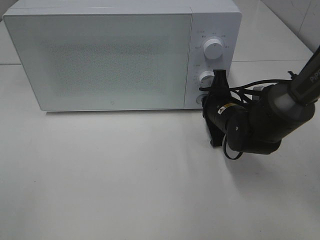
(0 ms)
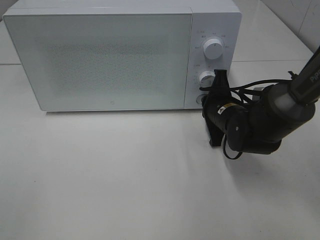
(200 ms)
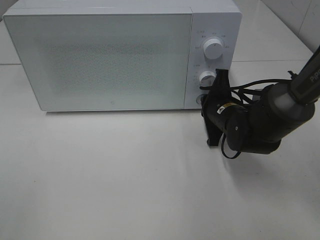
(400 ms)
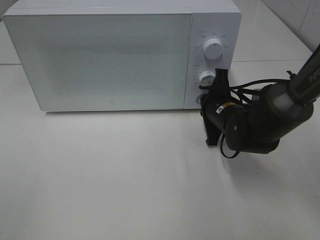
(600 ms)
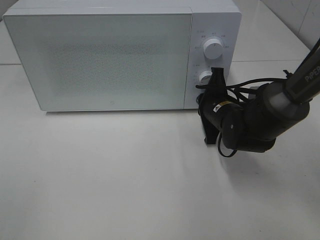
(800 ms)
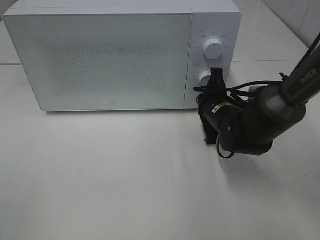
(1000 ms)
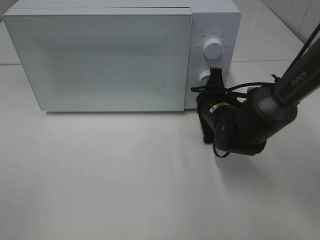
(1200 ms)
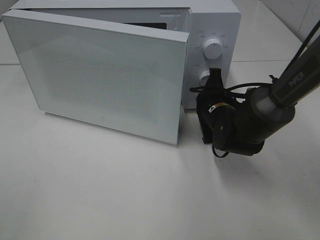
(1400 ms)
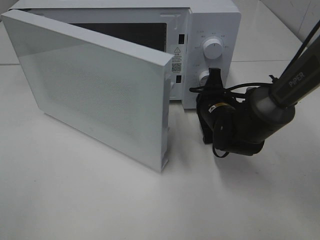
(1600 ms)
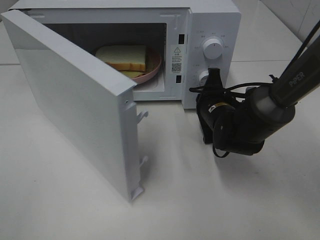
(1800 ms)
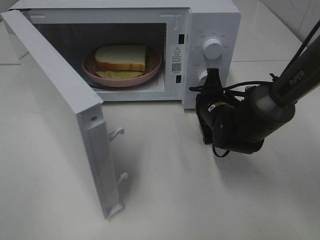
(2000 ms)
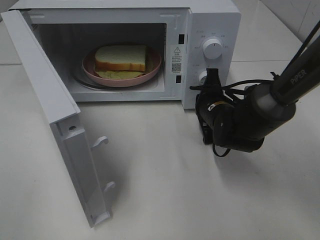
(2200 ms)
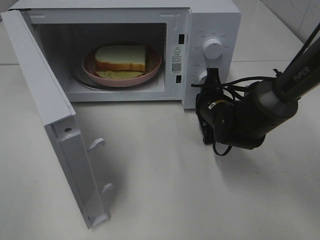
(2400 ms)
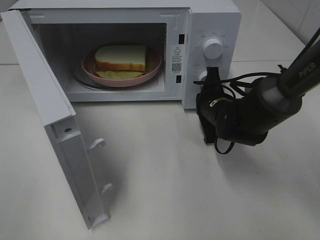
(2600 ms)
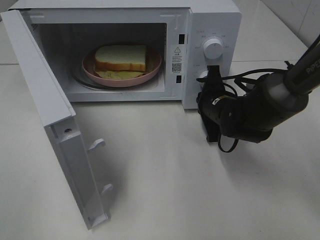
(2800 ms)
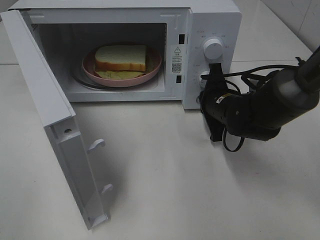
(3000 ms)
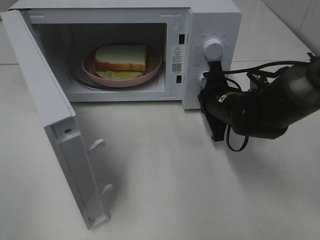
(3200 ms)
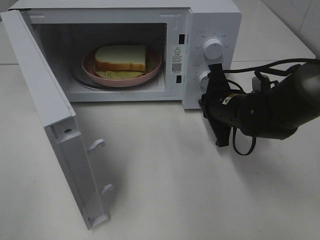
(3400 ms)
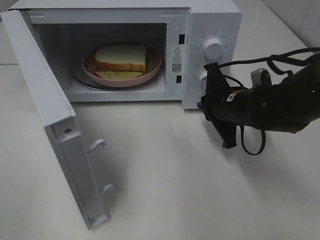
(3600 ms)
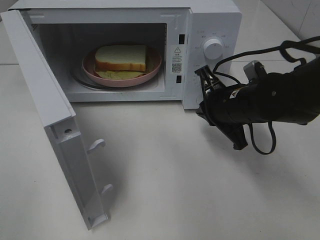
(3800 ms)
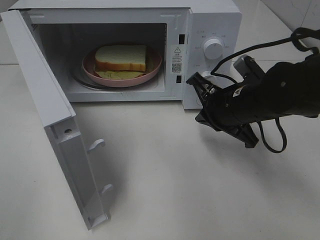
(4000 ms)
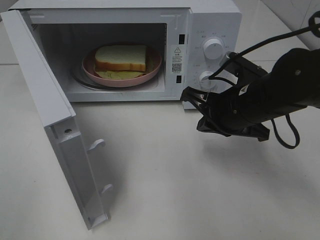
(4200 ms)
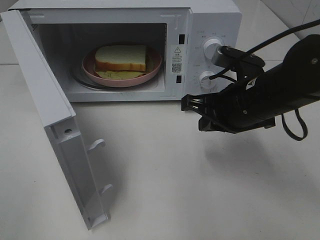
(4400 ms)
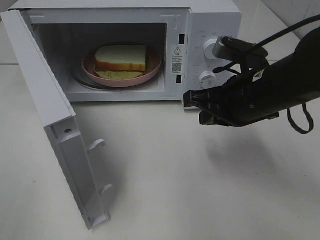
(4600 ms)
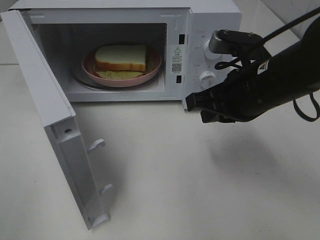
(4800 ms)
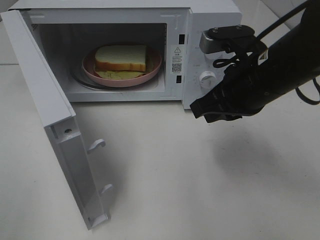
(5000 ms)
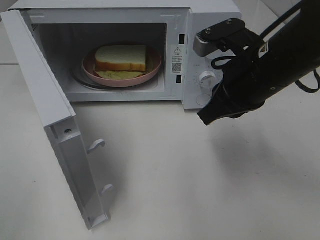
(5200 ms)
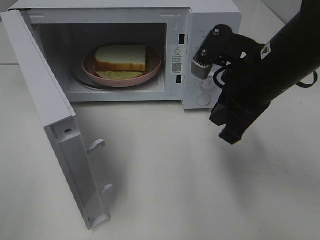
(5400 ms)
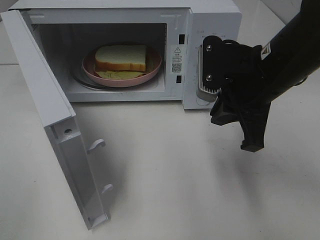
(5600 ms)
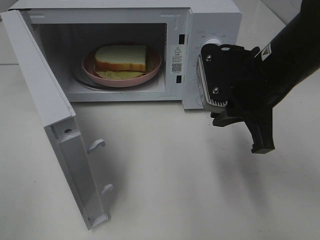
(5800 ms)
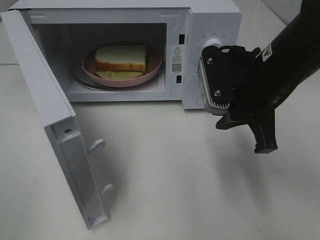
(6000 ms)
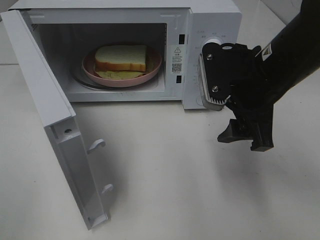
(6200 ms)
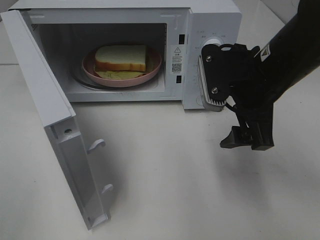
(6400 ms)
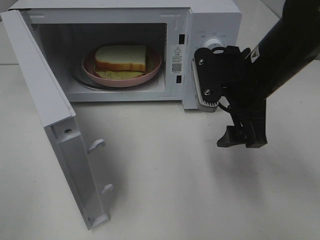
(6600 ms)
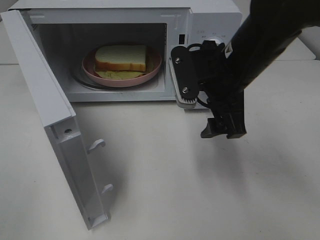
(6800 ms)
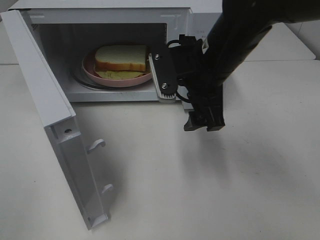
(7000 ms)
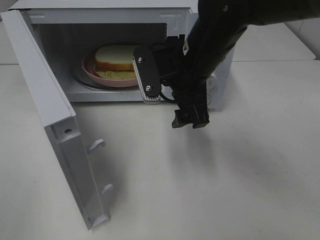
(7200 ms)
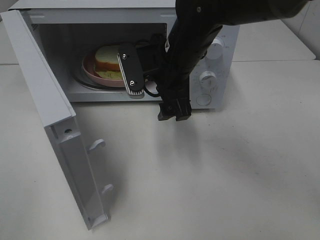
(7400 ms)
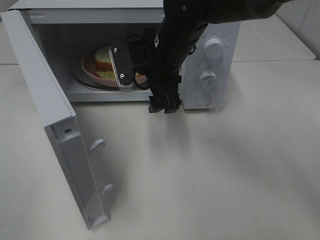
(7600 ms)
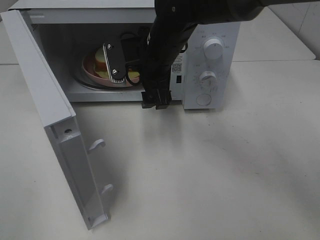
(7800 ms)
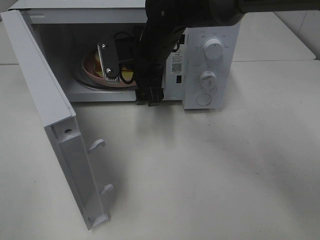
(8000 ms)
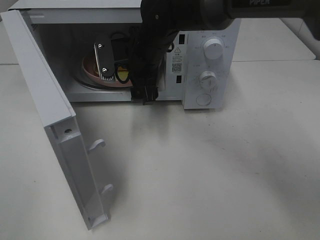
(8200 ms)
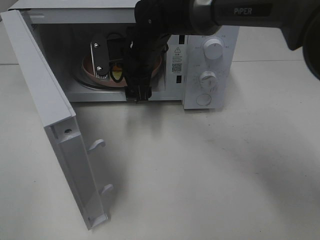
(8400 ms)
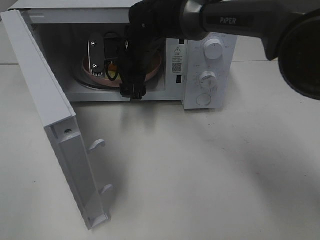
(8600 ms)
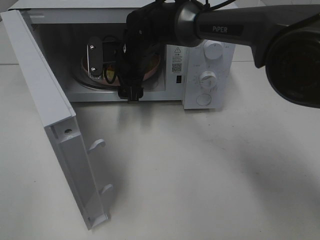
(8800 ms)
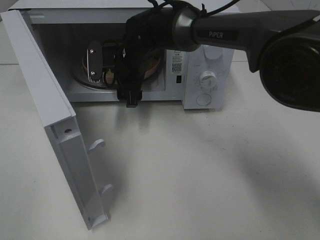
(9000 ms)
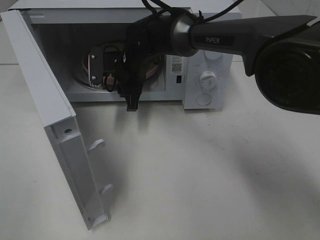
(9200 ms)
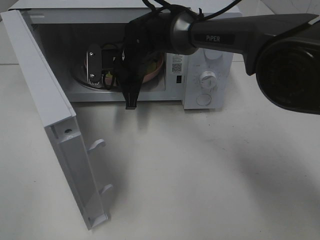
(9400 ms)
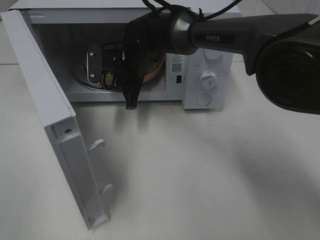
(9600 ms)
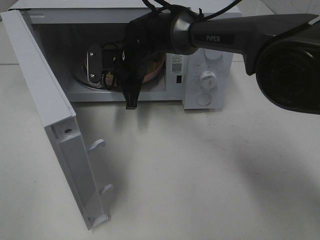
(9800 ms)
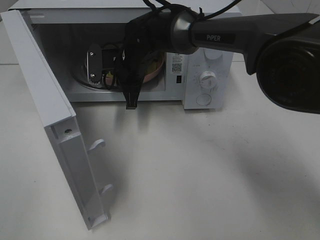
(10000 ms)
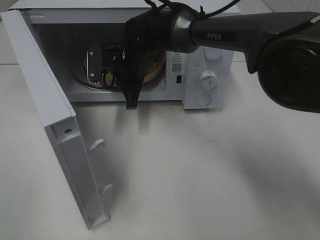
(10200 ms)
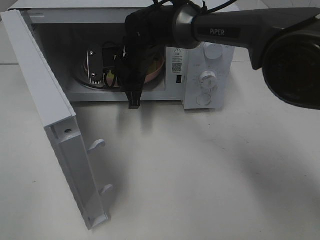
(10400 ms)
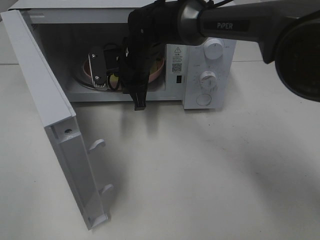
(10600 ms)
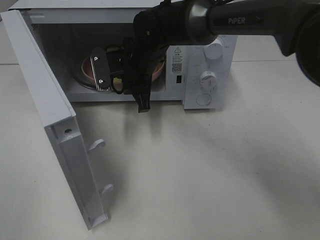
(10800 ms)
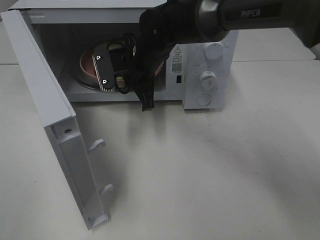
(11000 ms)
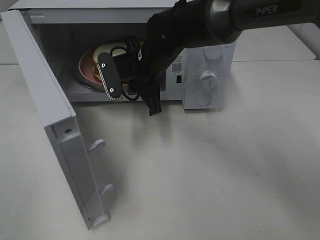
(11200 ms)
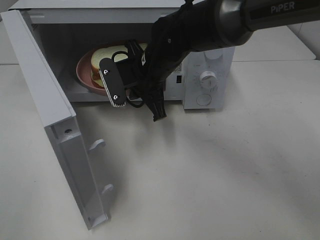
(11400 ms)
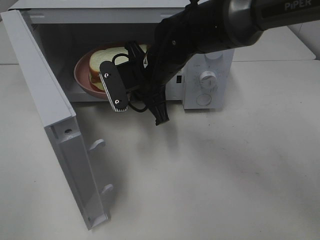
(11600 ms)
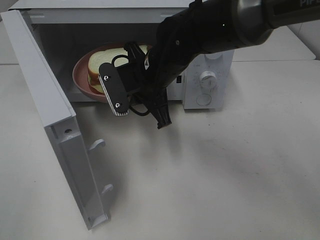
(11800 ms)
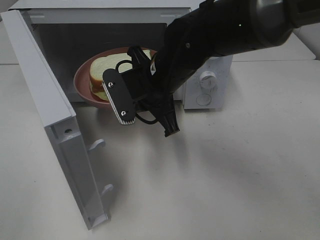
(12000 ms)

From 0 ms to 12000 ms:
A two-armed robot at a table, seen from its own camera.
Task of the whole recording: Heat Sandwich.
Step, from 0 ms to 3200 ms: Right hand: press the switch.
Step, from 3400 ms to 9600 ms: Right hand: grab the plate with the sandwich.
From 3000 ms to 4400 ms: The right gripper moves upward and backward, about 10 cm.
From 4400 ms to 6000 ms: The right gripper heads upward, covering roughly 5 cm.
From 6000 ms to 7600 ms: The right gripper heads to the left and forward, covering about 15 cm, and opens its fingers.
From 7600 ms to 9000 ms: The right gripper is displaced forward, downward and to the left by approximately 10 cm.
From 9000 ms to 10400 ms: The right gripper closes its fingers.
From 10400 ms to 12000 ms: The right gripper moves backward and to the right, approximately 10 cm.

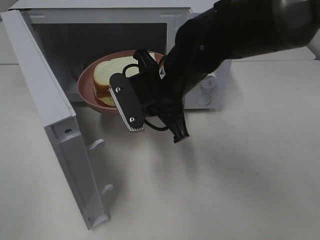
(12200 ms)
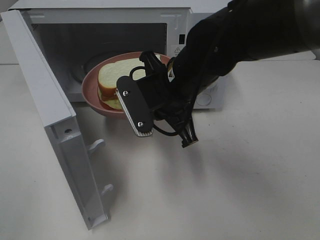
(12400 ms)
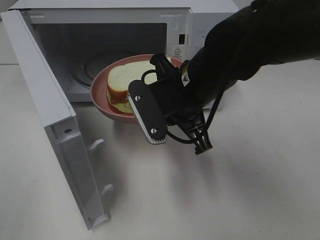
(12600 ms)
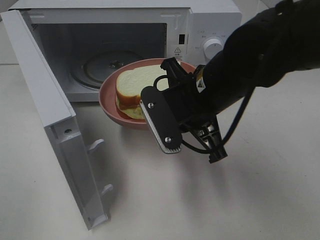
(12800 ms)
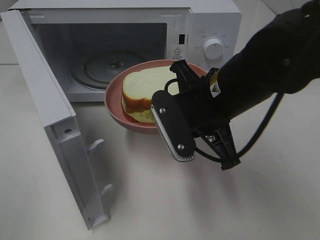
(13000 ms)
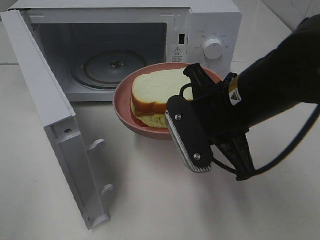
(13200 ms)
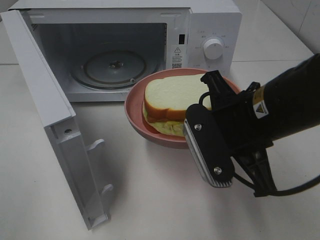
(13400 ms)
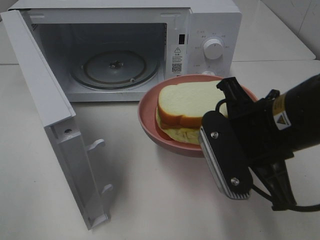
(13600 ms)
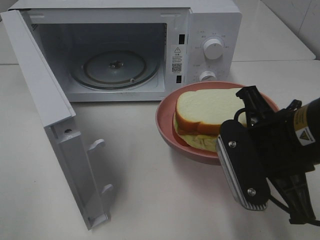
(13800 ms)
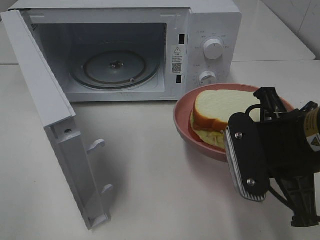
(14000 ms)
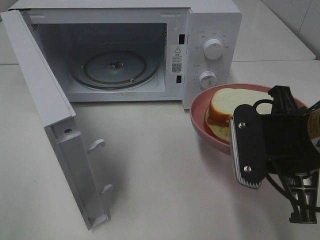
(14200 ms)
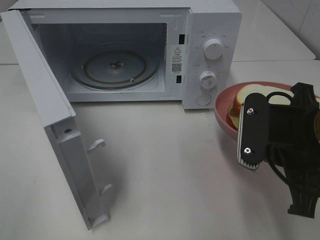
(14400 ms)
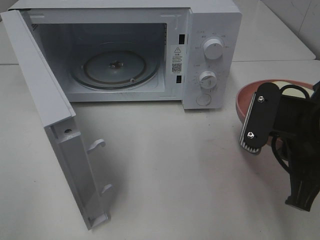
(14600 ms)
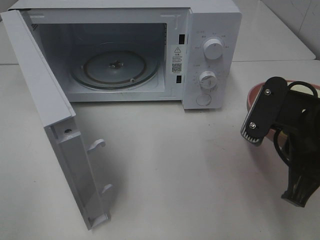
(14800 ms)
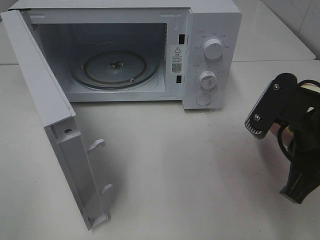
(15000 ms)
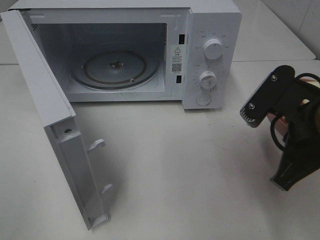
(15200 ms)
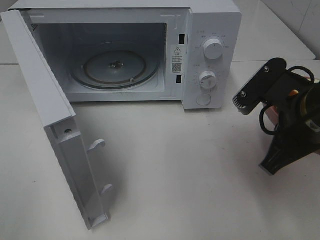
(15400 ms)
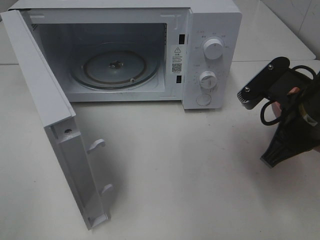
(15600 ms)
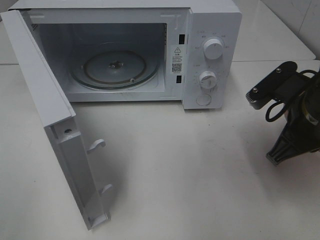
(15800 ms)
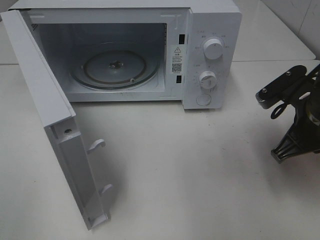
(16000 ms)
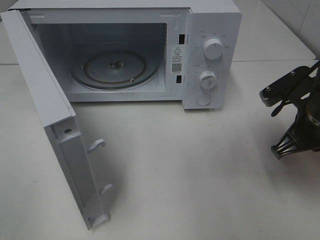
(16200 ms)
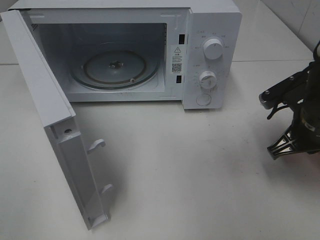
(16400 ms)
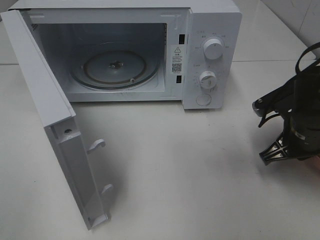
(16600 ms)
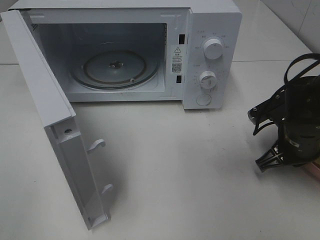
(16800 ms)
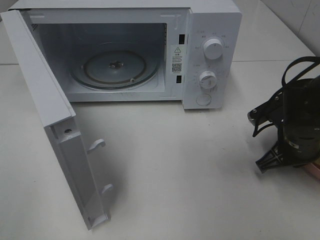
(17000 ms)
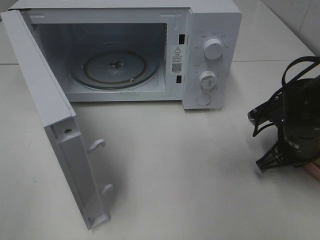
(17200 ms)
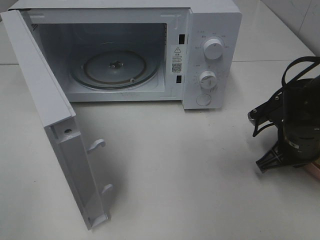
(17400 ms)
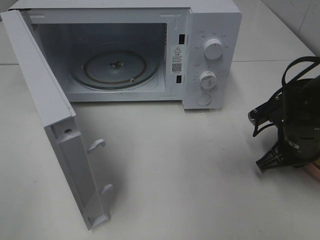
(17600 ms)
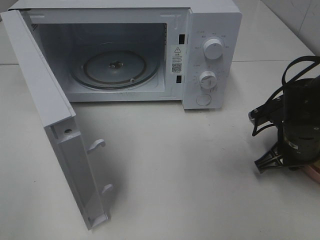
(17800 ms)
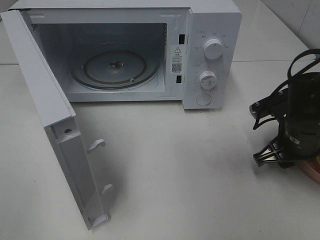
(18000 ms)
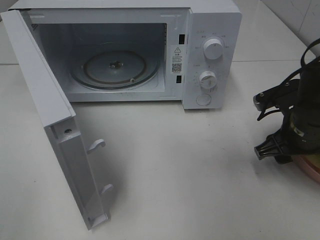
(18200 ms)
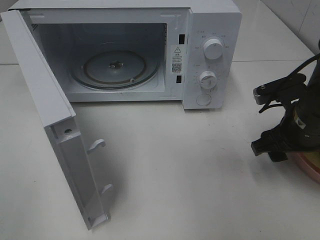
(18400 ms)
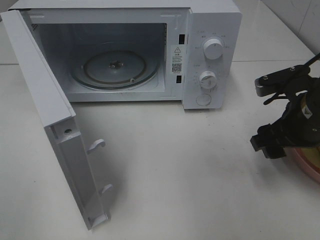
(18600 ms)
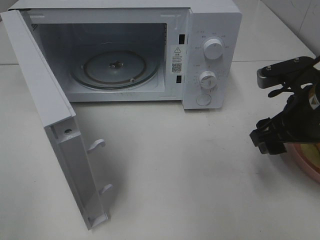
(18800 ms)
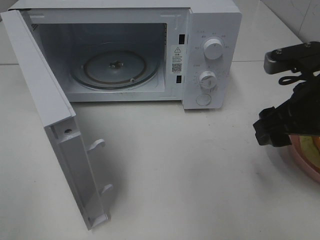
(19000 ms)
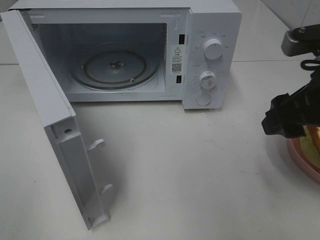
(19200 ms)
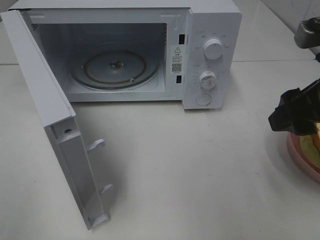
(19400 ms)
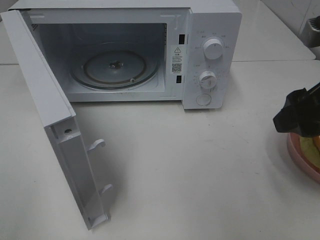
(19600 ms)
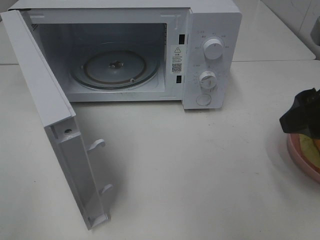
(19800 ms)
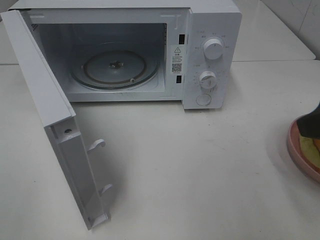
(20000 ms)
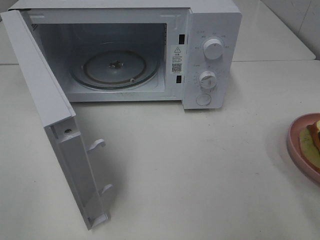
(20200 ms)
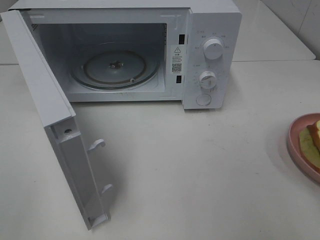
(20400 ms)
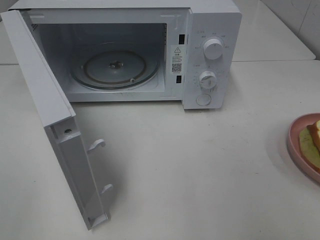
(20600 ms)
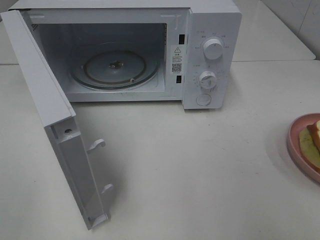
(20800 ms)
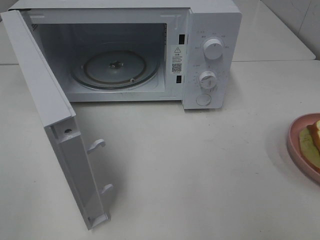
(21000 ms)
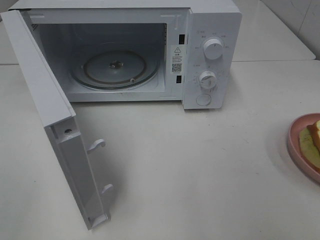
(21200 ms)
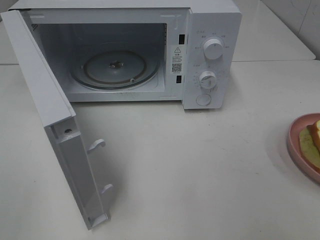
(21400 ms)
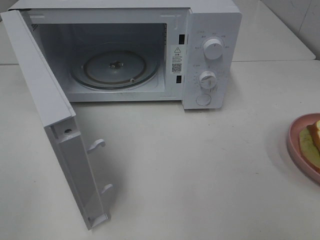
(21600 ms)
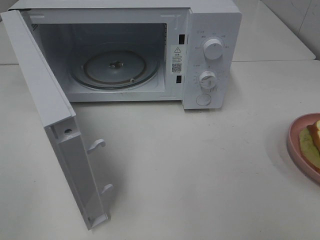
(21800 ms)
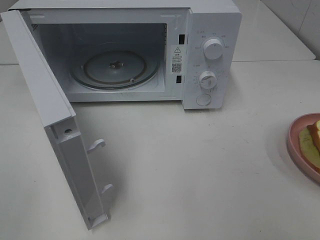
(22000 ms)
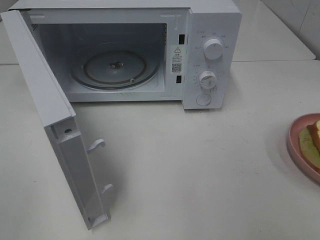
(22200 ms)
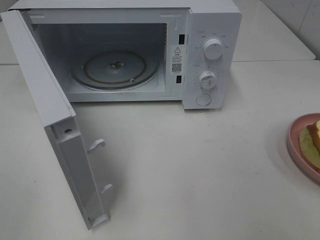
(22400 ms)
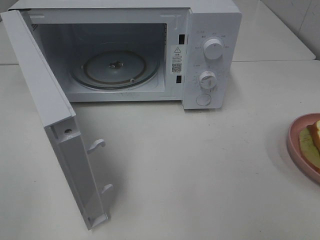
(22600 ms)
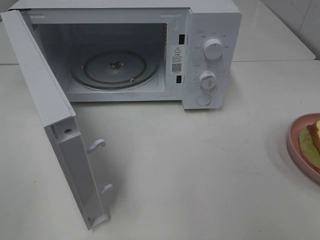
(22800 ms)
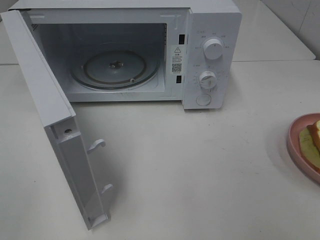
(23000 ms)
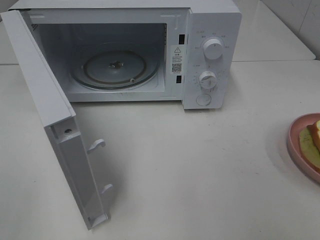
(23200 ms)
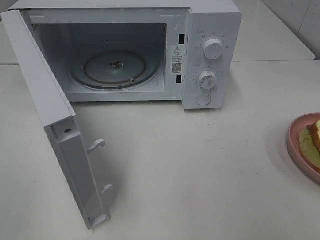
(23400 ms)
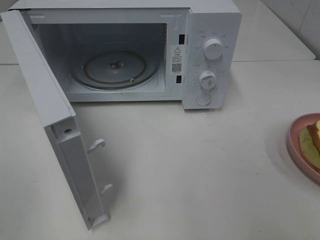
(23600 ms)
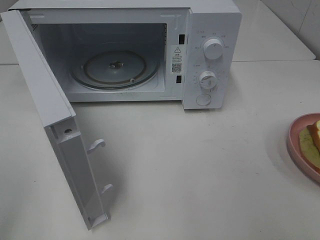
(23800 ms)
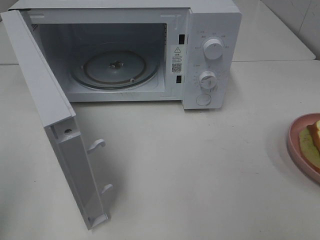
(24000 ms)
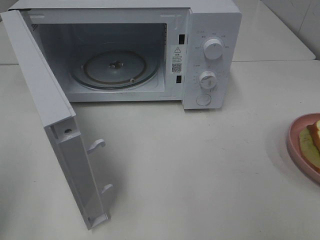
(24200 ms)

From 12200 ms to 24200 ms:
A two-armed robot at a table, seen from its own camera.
Task of the whole recording: Heat Sandwich.
Step, from 12200 ms to 19200 ms: Right hand: place the plate on the table.
From 12200 ms to 13800 ms: The right gripper heads backward and to the right, covering some 20 cm.
From 15200 ms to 16600 ms: The right gripper heads downward and forward, covering some 15 cm.
From 16600 ms to 18200 ms: The right gripper opens up.
From 18200 ms to 19800 ms: The right gripper goes some 15 cm upward and backward.
From 19800 ms to 21200 ms: The right gripper goes some 20 cm backward and to the right.
From 21200 ms to 22600 ms: Both grippers stay put.
